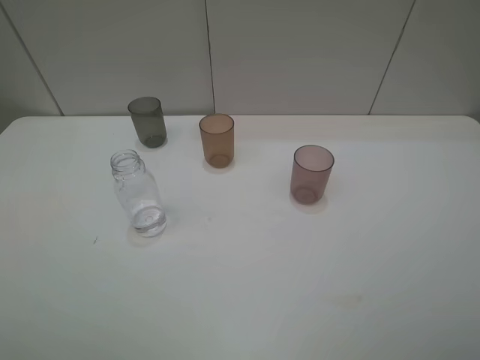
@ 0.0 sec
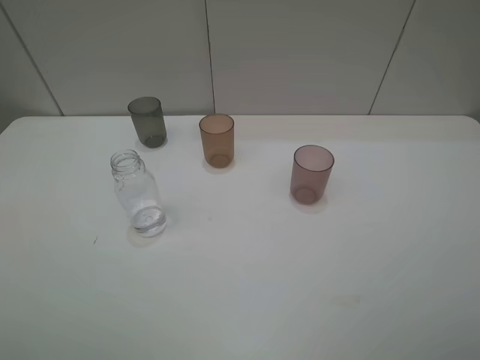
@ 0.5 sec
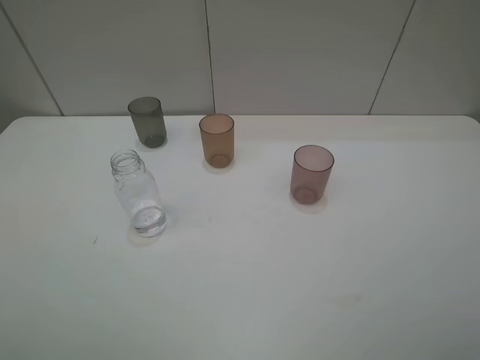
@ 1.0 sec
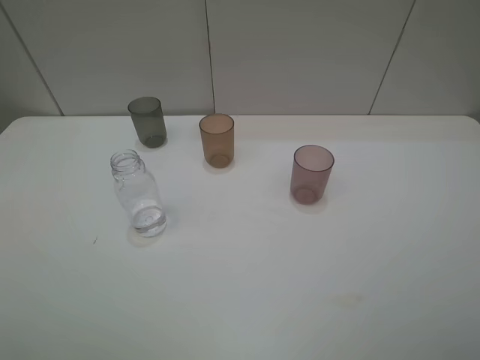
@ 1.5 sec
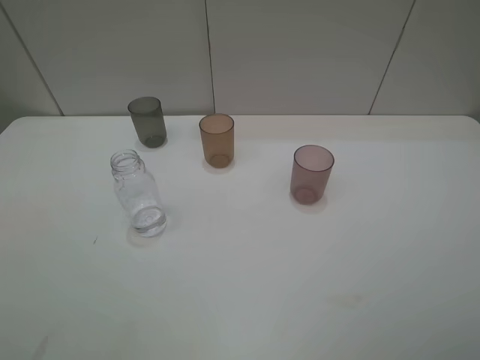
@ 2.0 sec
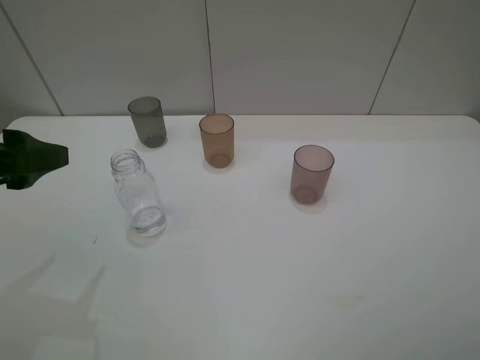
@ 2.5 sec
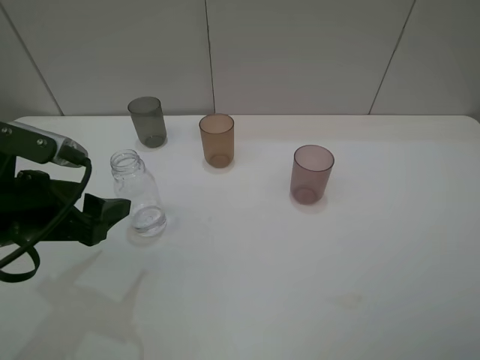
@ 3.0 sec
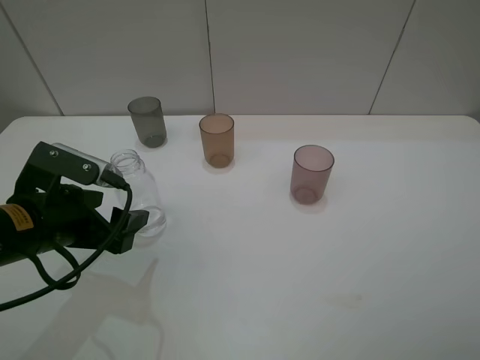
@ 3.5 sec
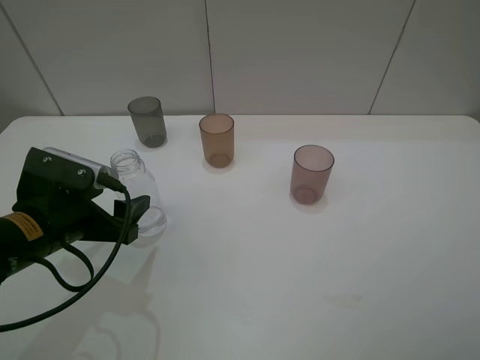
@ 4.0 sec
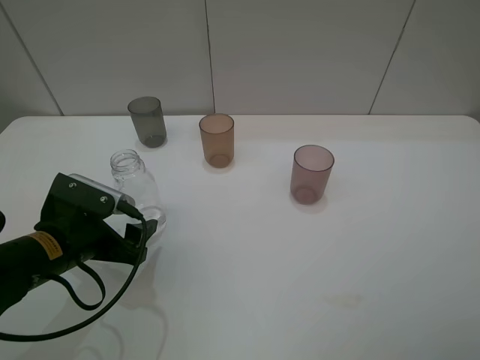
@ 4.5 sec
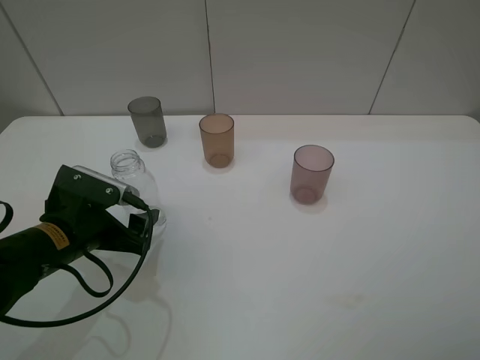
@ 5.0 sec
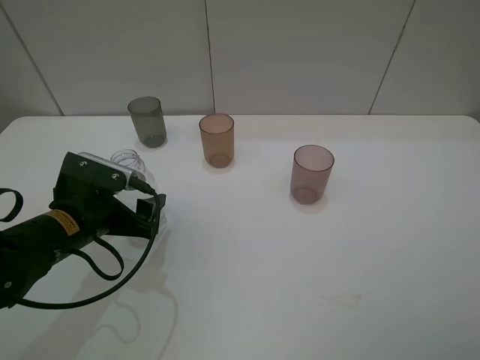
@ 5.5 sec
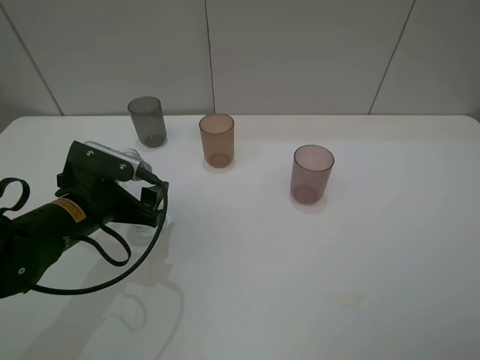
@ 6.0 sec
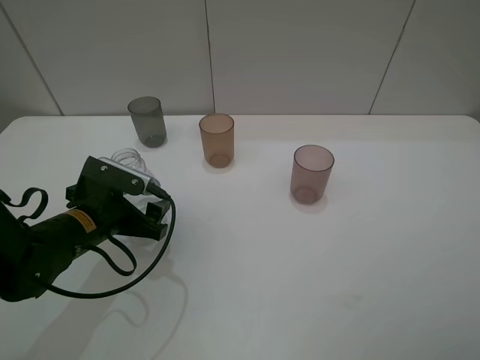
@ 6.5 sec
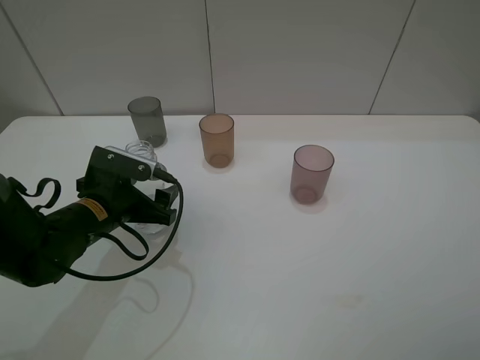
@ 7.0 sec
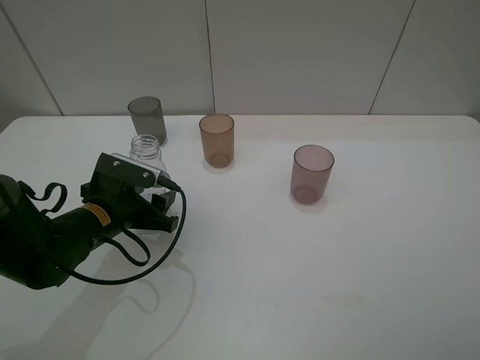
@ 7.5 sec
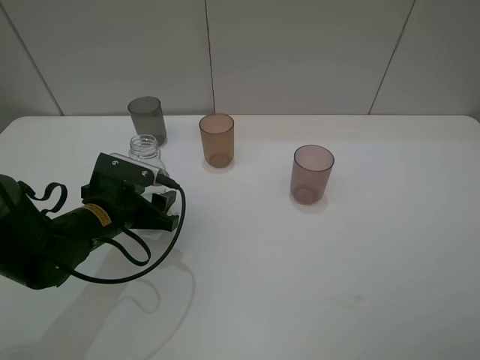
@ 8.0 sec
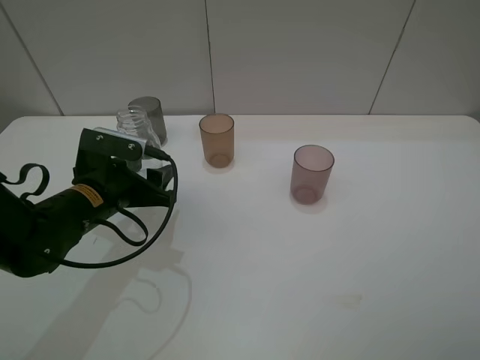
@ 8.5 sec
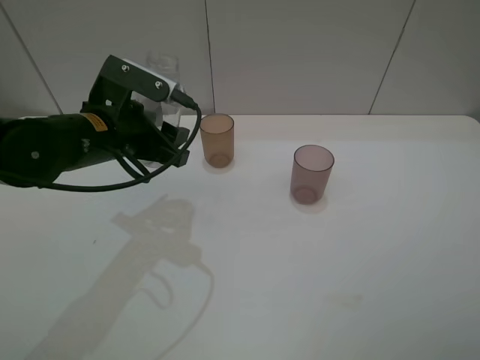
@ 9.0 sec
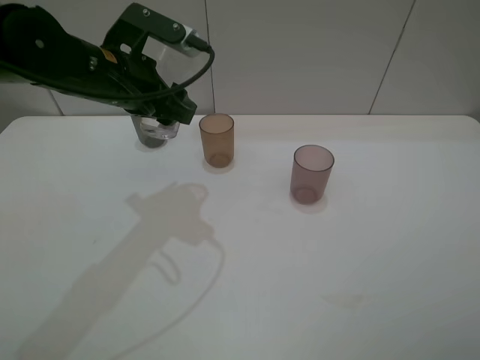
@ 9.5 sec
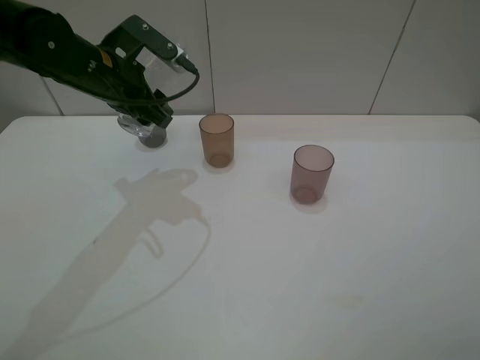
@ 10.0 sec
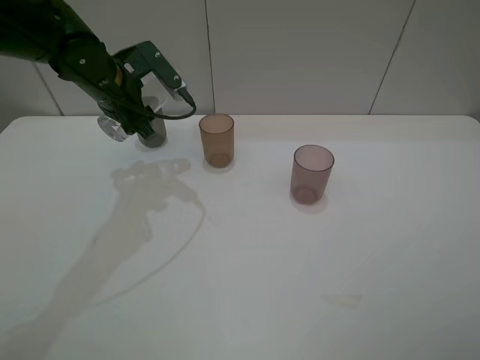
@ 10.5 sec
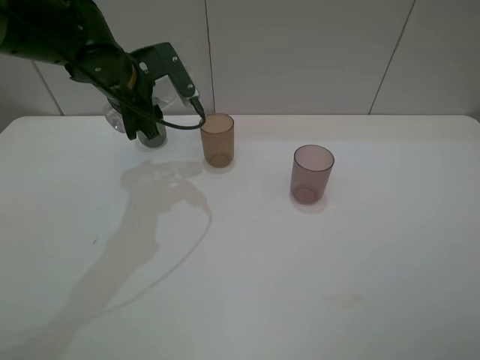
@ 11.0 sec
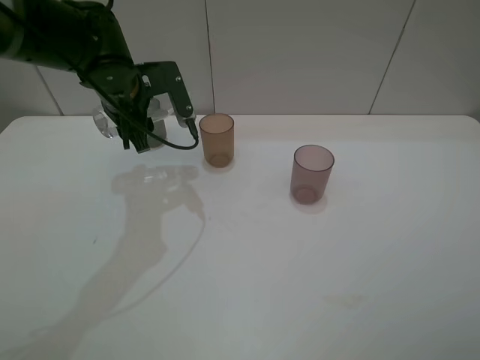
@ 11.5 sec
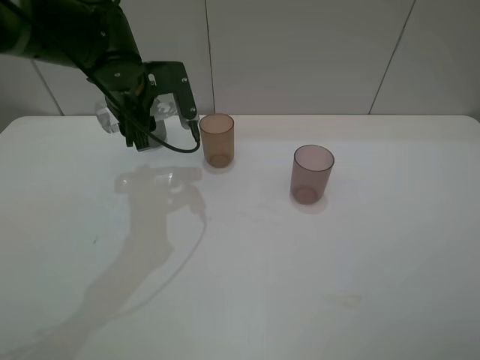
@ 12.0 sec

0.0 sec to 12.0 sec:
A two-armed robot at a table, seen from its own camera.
Task of the whole recording: pick up the bottle filled with water and pour water into the middle cup of the three cups.
Step, 0.0 sec to 7.5 sec: Grasp the transparent bottle with the left gripper.
2.0 sec to 4.0 sec: The left gripper goes about 20 cm downward, forward and to the right.
4.0 sec to 6.0 sec: The left gripper shifts by some 5 cm.
6.0 sec to 8.0 sec: The left gripper closes.
8.0 sec to 10.0 sec: The left gripper heads upward and forward, covering roughly 20 cm.

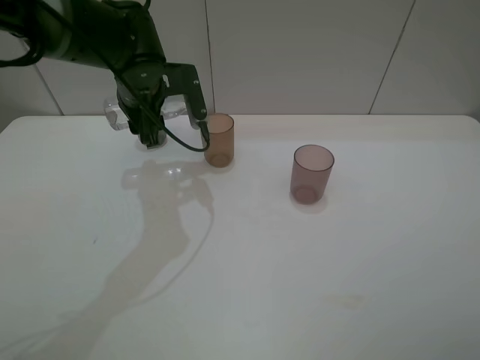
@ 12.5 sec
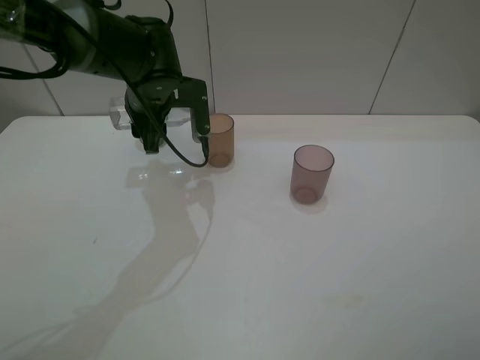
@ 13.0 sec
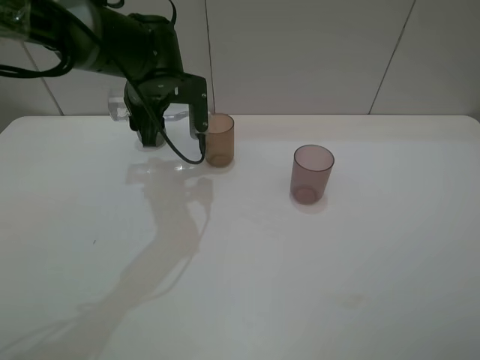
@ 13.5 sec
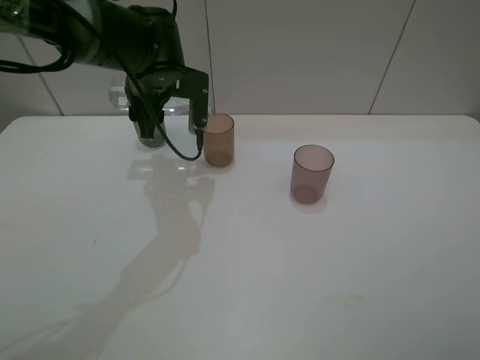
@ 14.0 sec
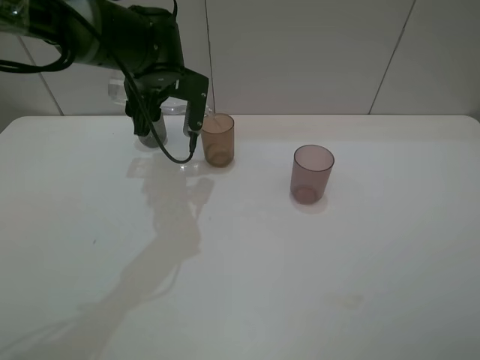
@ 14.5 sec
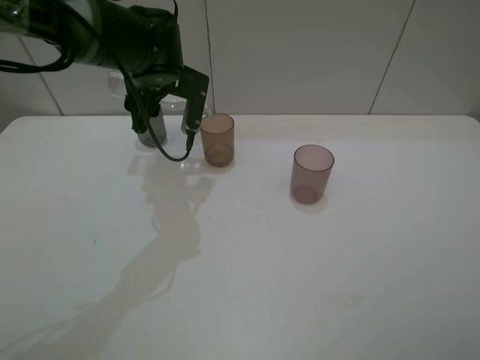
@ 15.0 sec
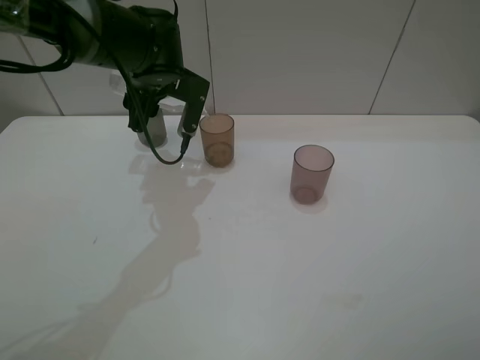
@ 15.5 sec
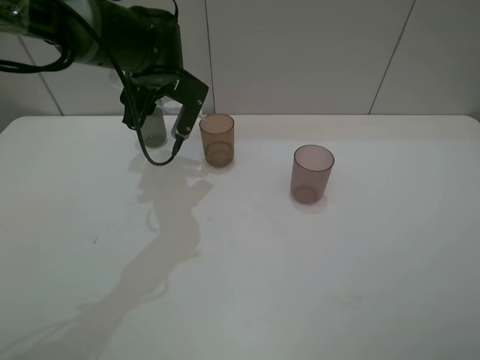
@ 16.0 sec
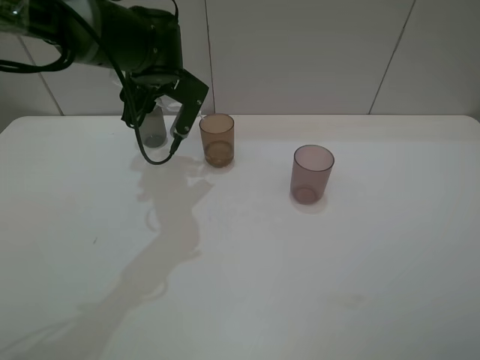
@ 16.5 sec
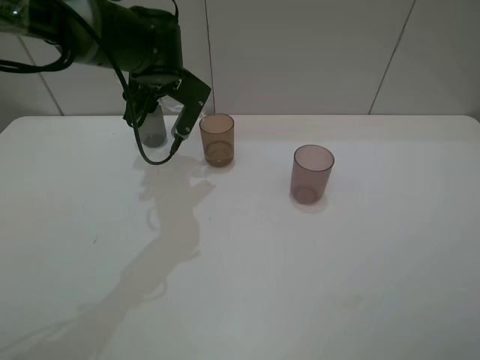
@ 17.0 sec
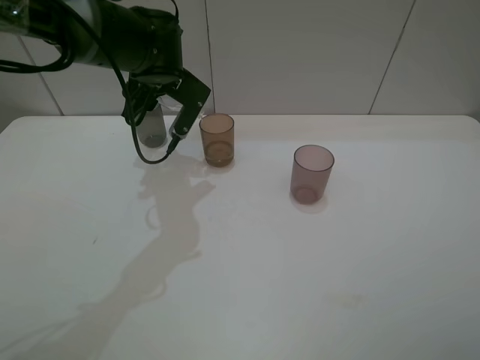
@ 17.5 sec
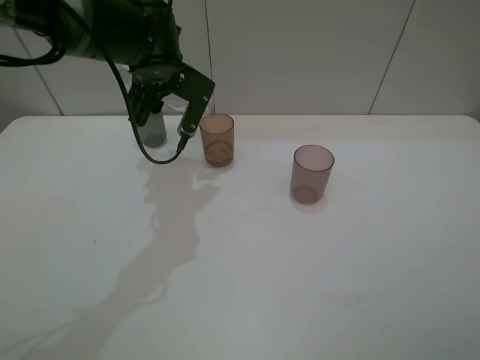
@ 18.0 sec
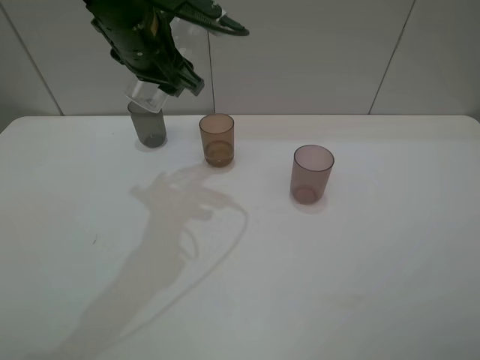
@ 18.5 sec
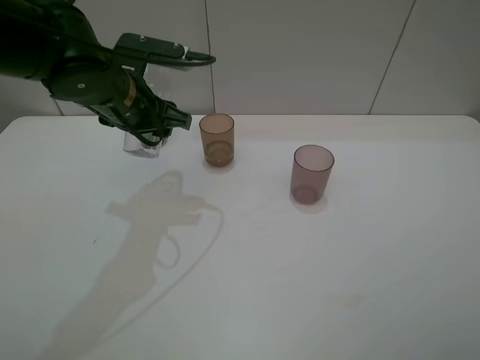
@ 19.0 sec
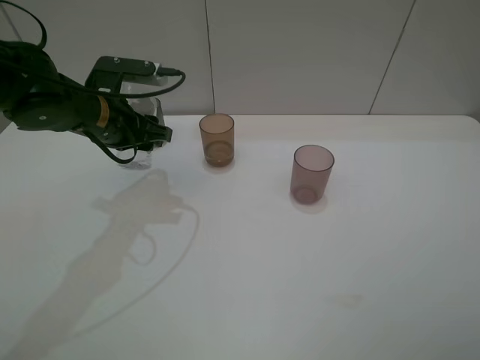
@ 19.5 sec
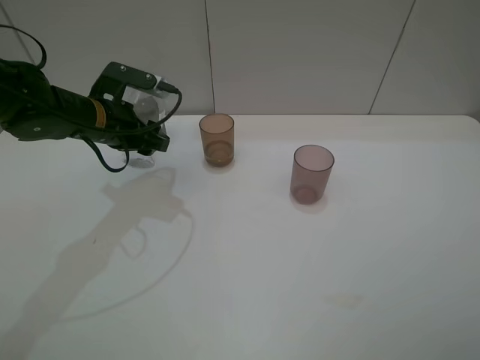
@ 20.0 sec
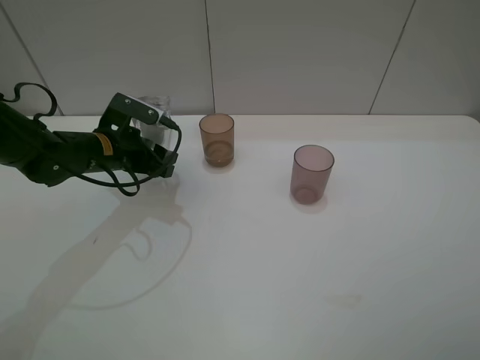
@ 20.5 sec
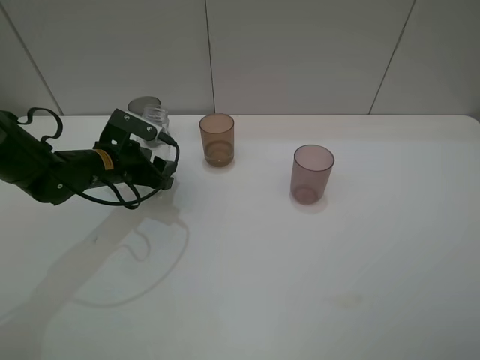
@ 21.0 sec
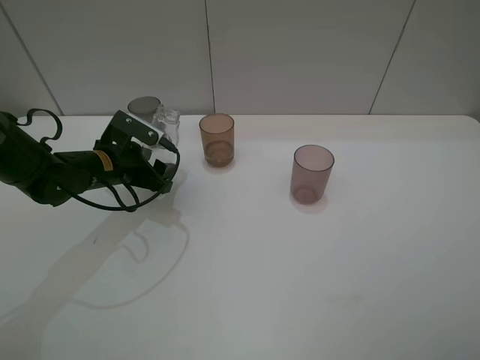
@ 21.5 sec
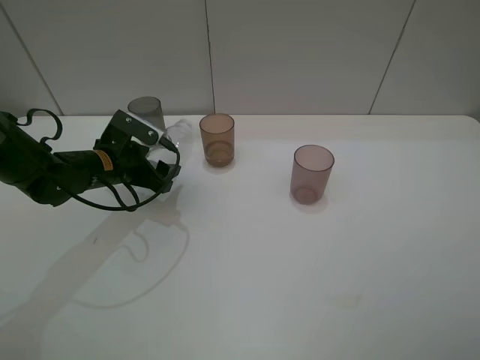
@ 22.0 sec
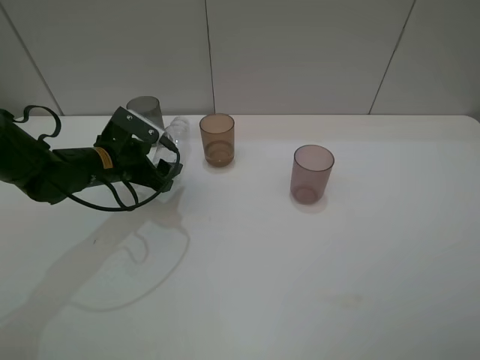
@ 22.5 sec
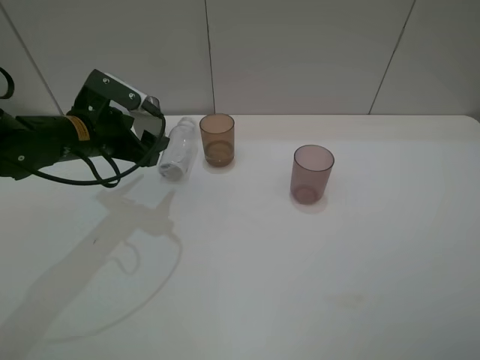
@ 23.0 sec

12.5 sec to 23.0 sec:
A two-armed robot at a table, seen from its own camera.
Task of the whole recording: pick up the bottle filled with water and pour water into the middle cup of the three cups.
14.5 sec to 16.5 sec: The grippers stay close to where they were, moving slightly.
16.5 sec to 19.0 sec: The left gripper heads backward, covering some 5 cm.
19.0 sec to 21.0 sec: The left gripper travels downward and to the left by about 15 cm.
21.0 sec to 23.0 sec: The left gripper heads upward, covering about 5 cm, and opens its fingers.

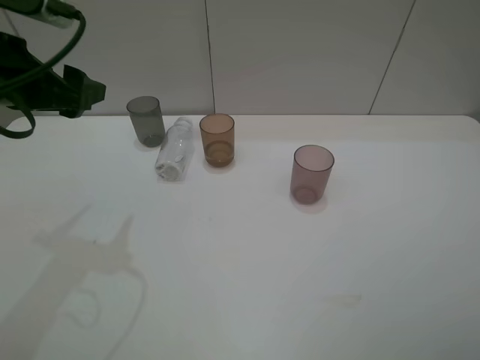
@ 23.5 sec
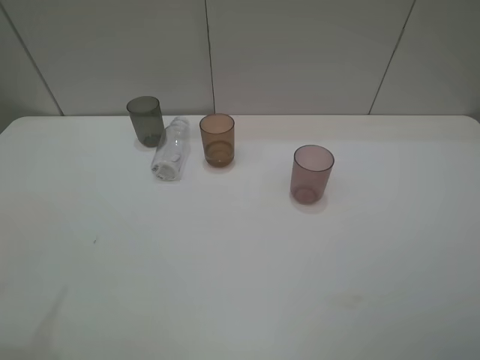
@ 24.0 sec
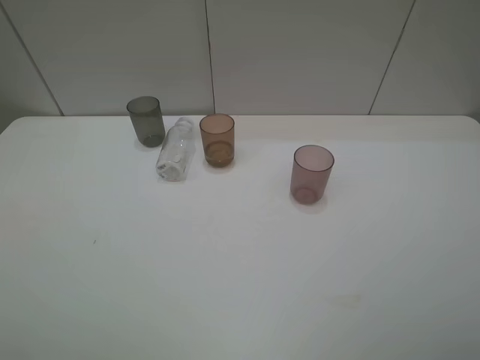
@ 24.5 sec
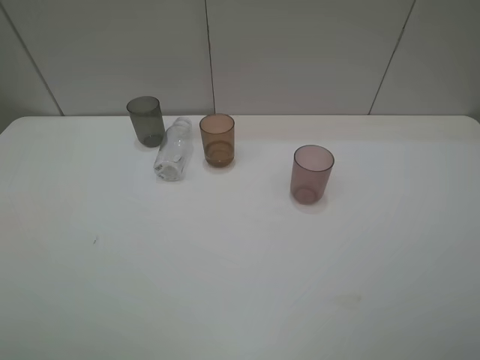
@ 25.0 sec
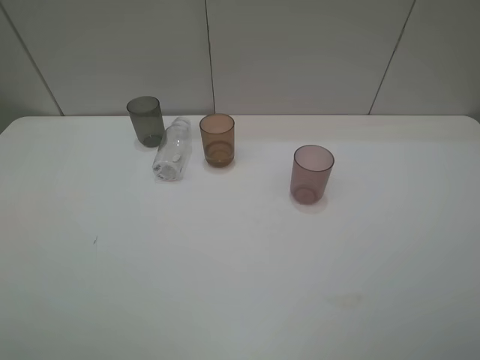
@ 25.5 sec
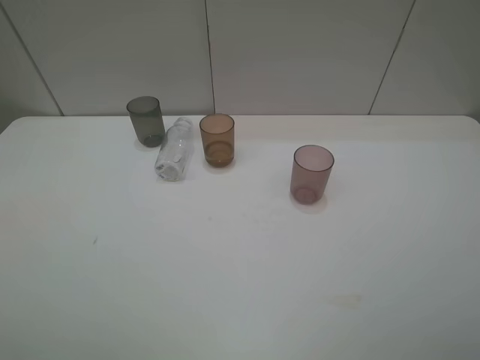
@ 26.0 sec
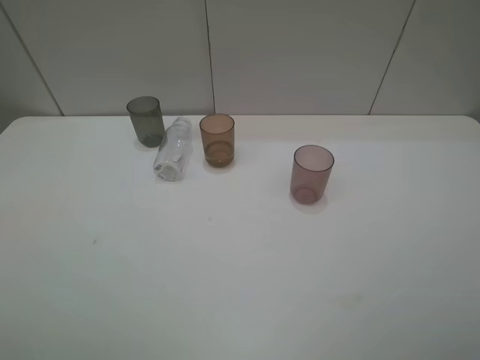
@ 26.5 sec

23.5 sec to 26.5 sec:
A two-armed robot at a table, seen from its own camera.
Task of the whole recording: pick up the bottle filled with water and pour water into the middle cup of the three cups.
23.5 sec to 25.0 sec: The left gripper goes roughly 25 cm backward.
